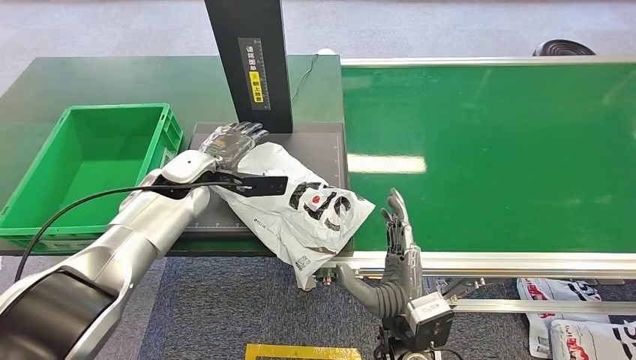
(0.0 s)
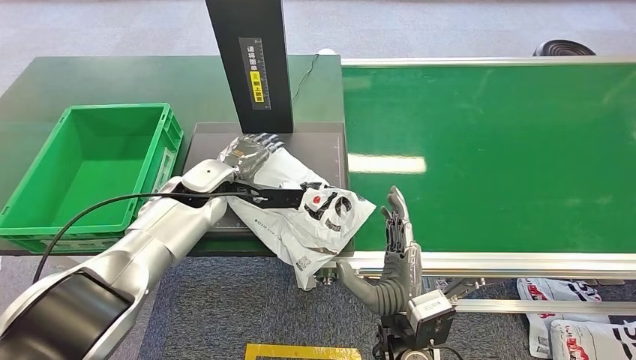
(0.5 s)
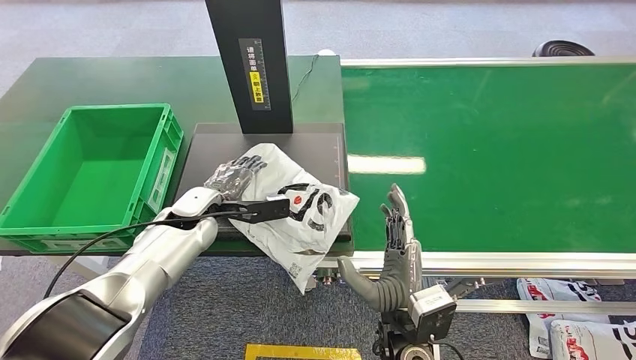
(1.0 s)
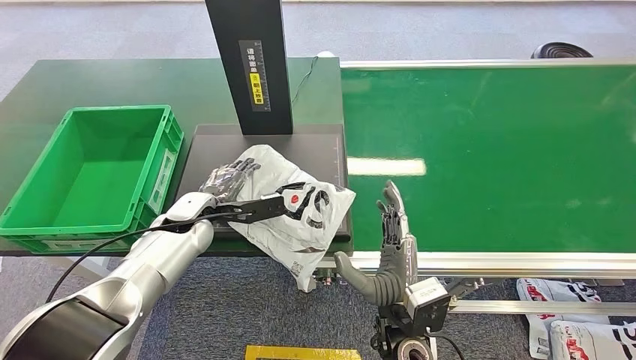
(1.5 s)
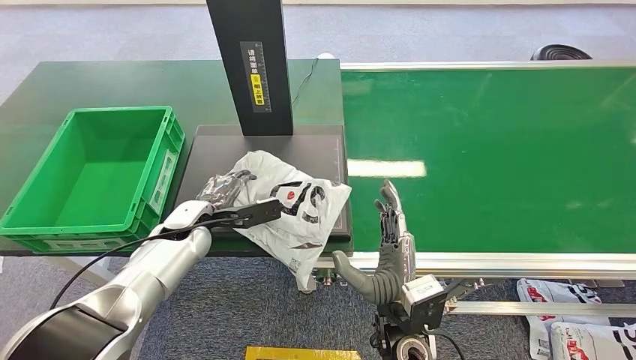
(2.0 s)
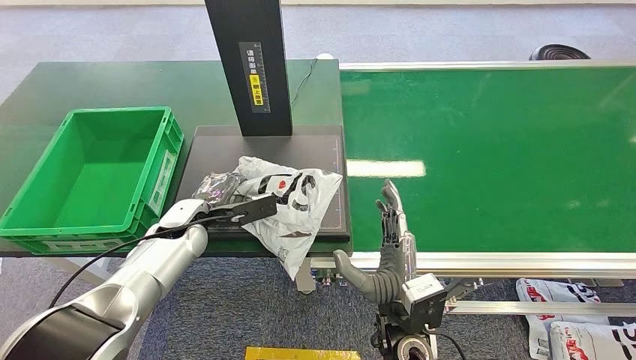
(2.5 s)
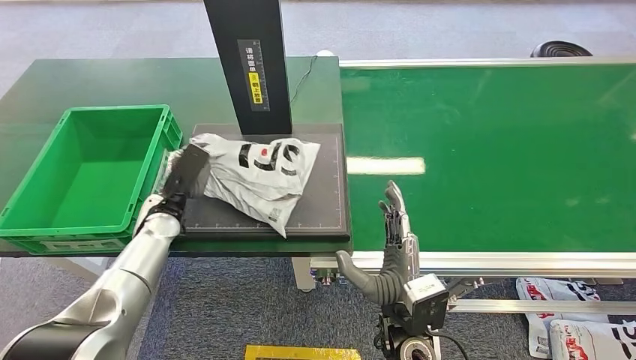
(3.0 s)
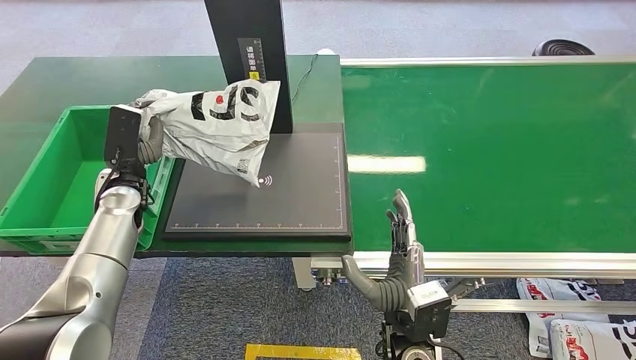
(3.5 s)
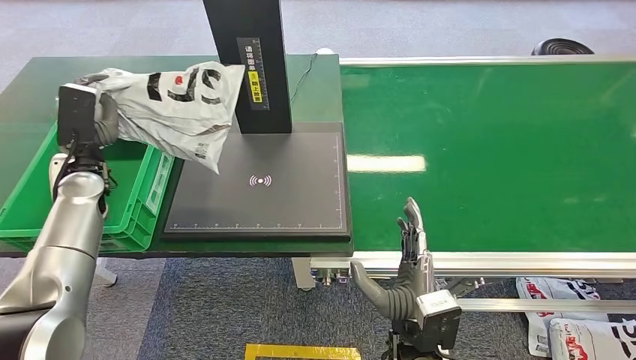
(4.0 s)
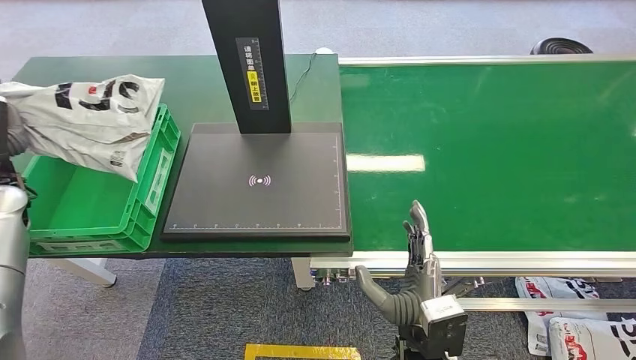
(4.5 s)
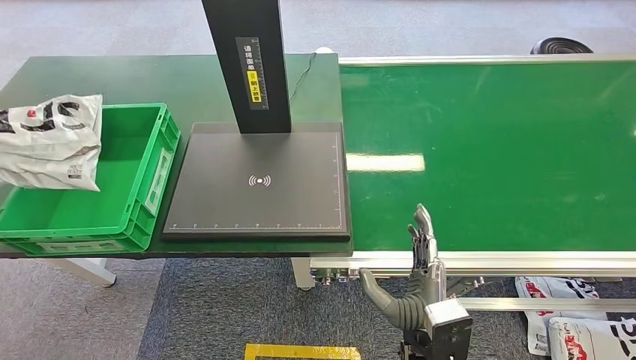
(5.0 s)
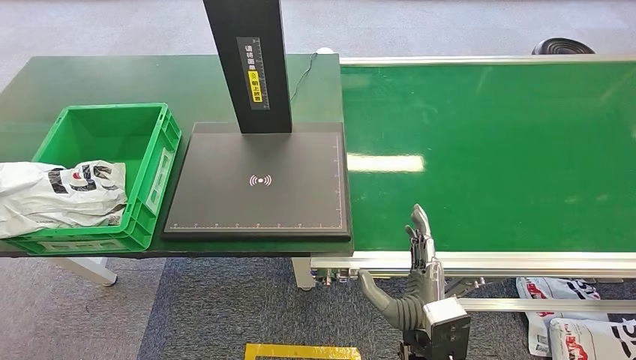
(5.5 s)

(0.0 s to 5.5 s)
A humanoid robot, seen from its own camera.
Step, 0.0 s - 3.0 s: Pick up the package from the inbound machine.
Step, 3.5 s - 5.5 s: Place the package into the parcel locker.
3.5 s - 5.5 s: The left hand heads to the left, covering roughly 25 cm.

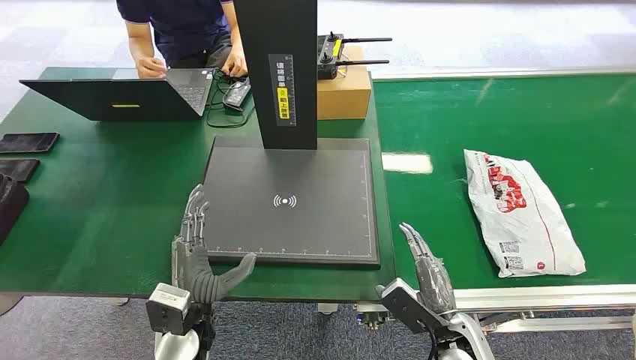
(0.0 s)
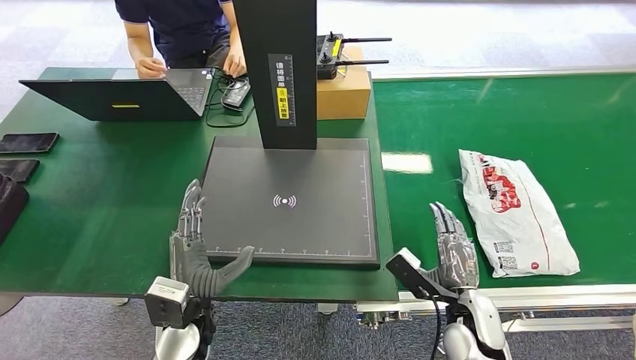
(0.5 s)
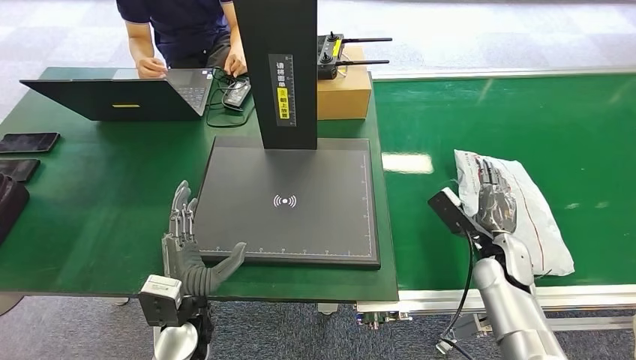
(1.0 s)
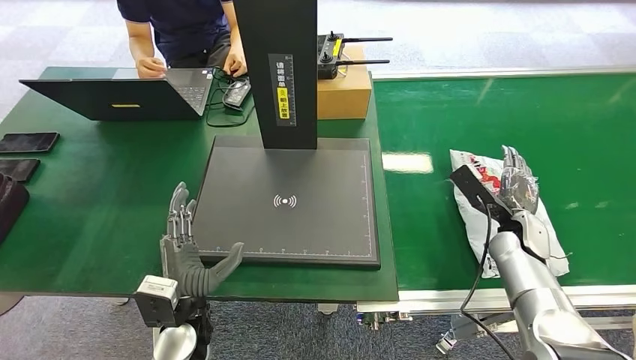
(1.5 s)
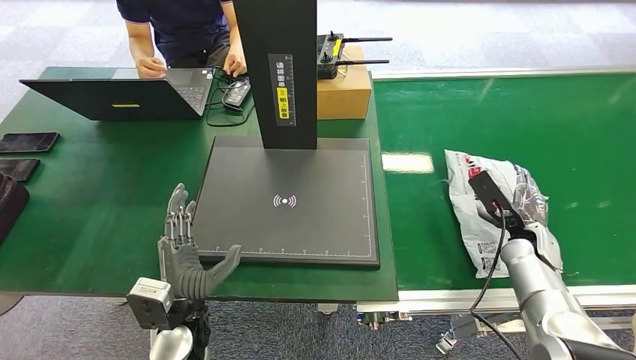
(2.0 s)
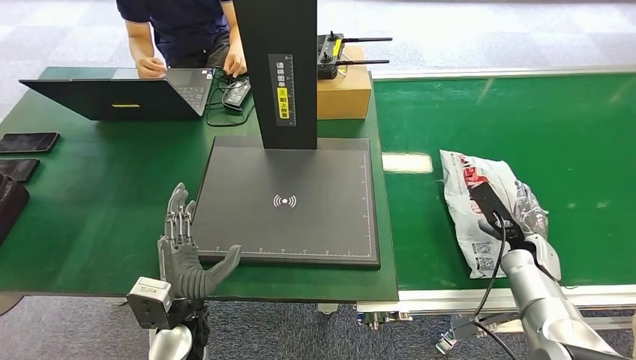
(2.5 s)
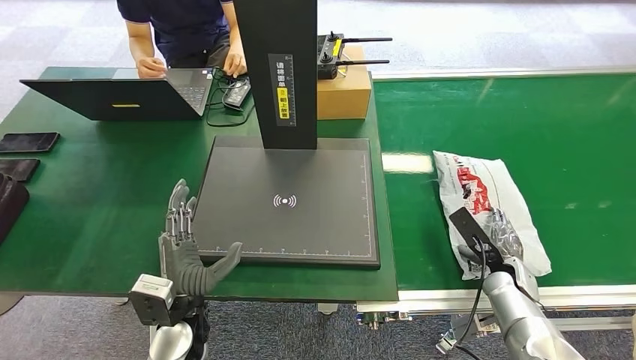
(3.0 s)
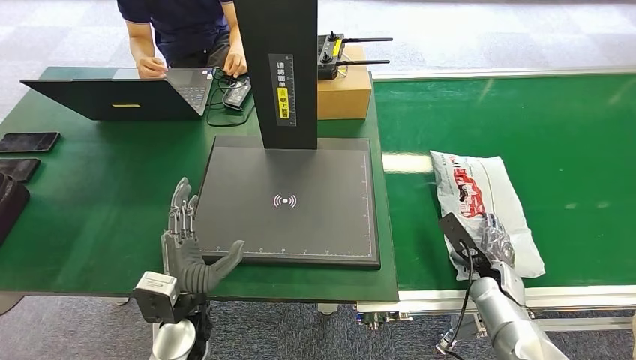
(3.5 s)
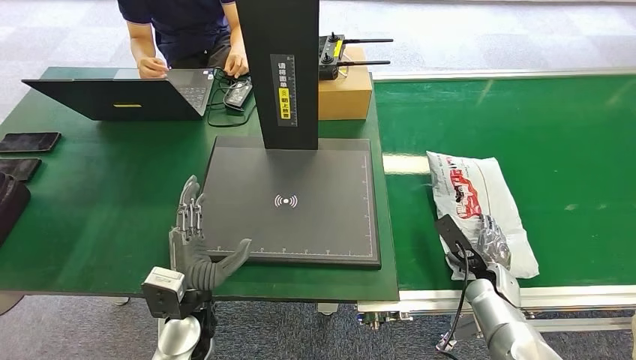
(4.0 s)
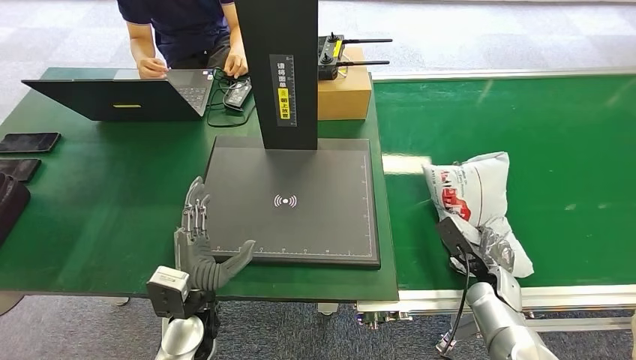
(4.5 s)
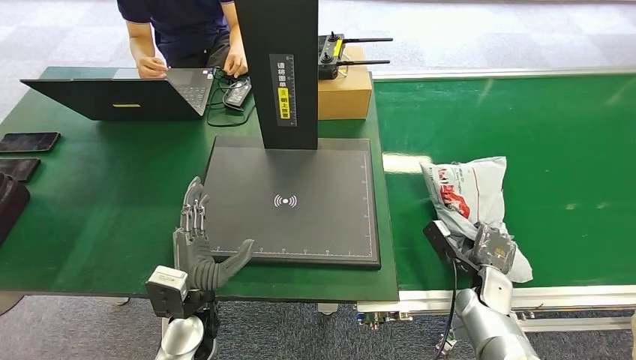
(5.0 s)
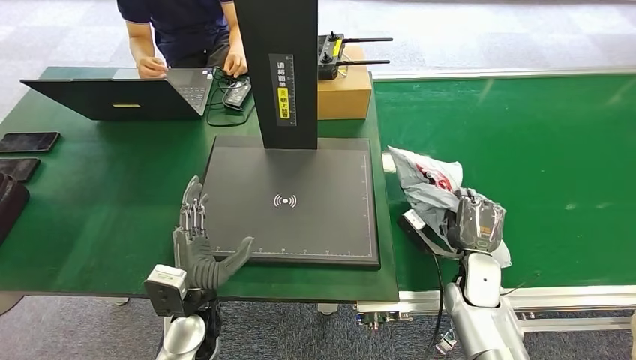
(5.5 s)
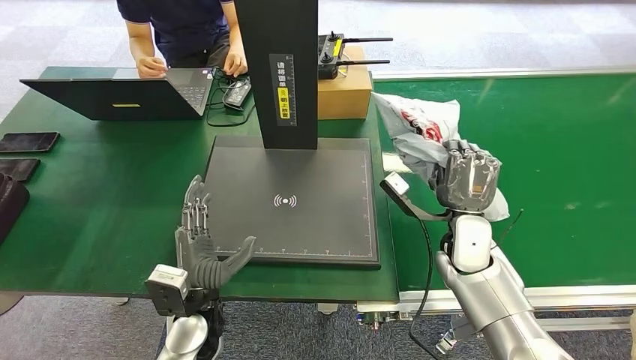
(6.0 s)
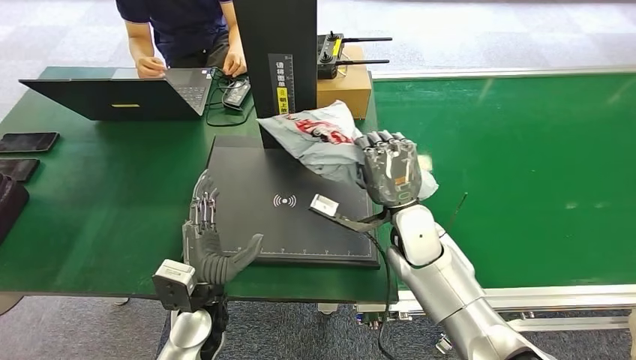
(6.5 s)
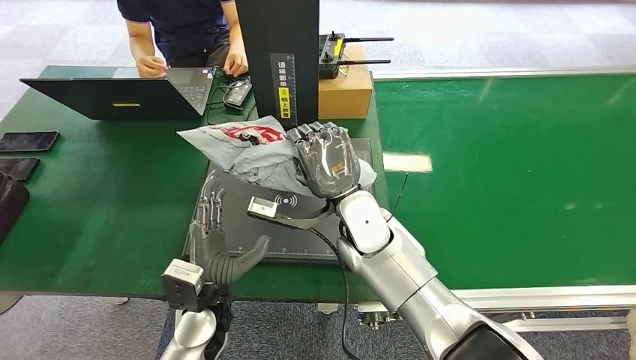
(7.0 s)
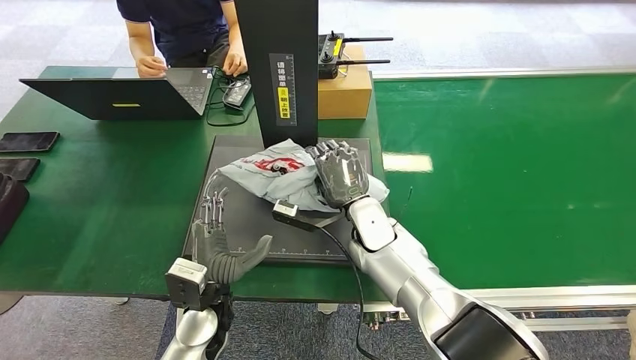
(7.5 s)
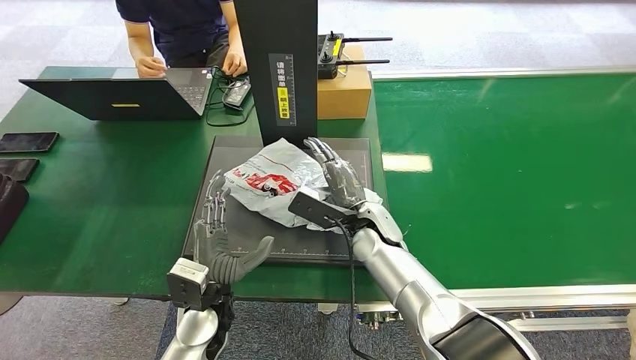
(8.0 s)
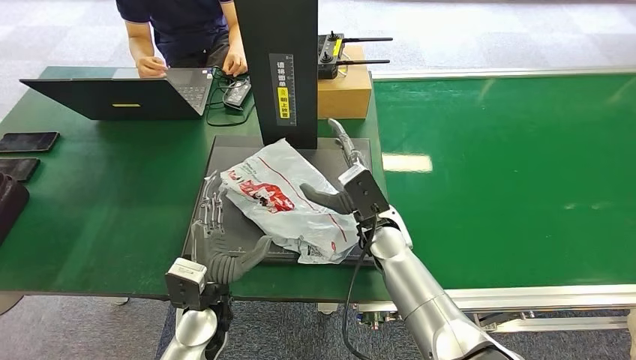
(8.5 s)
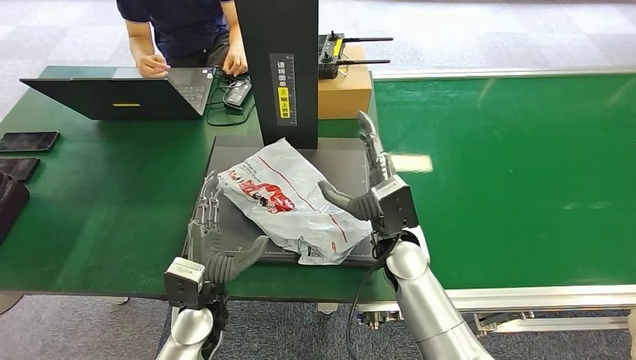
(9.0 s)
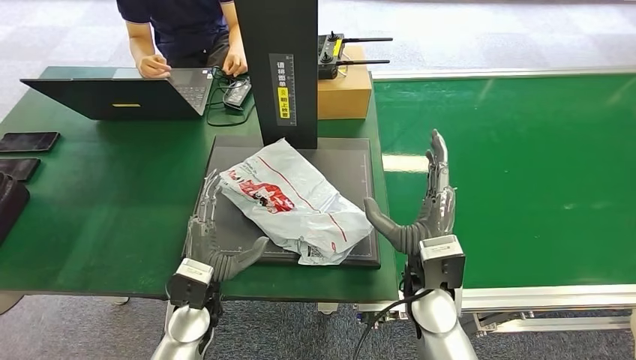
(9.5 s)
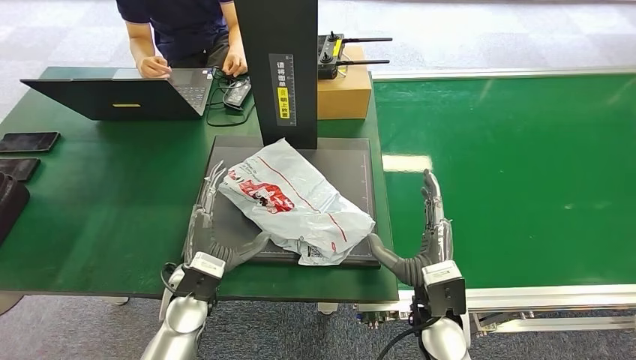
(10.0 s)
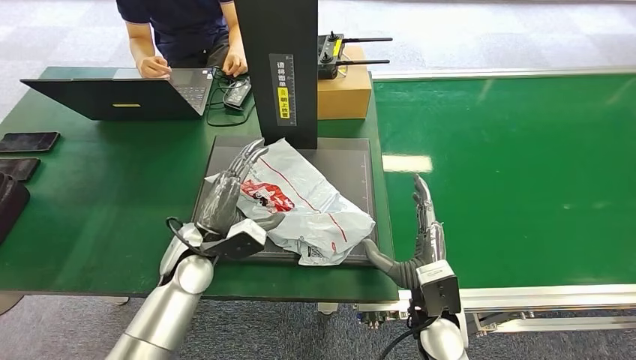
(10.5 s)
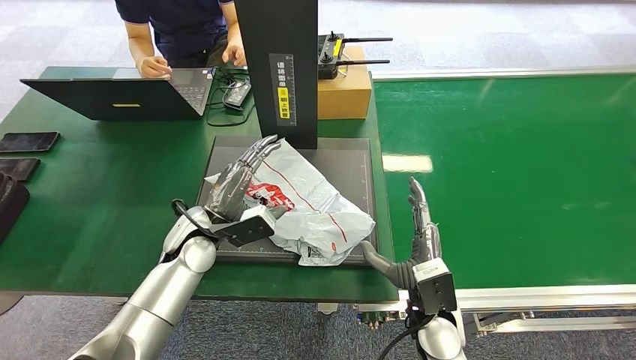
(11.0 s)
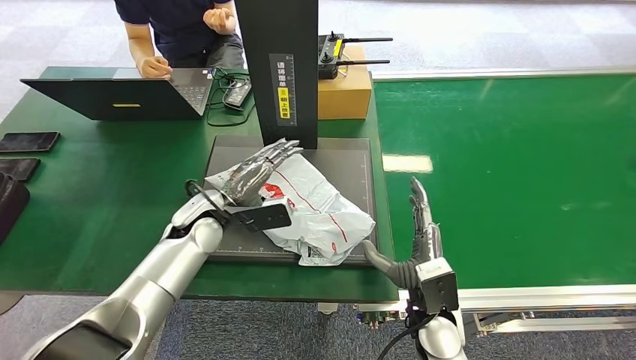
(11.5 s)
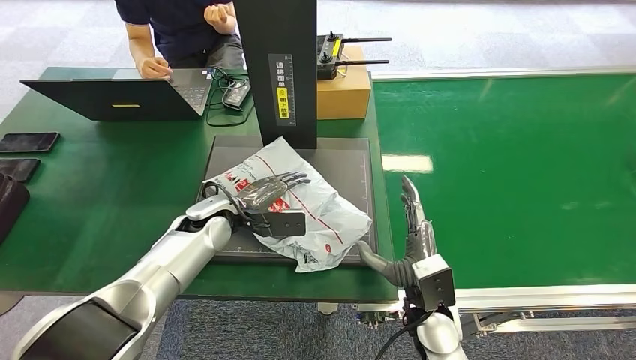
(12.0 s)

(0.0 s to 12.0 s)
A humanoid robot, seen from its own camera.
Step, 0.0 s - 5.5 s: Pick up the package from the conveyor belt.
Step, 6.0 s - 9.0 s: Place the package onto the inbound machine.
2.0 s - 4.0 s: The right hand shifts approximately 10 cm downward and to the left.
4.0 s - 6.0 s: The right hand moves upward and to the left, roughly 20 cm.
8.0 s - 10.0 s: The right hand travels backward and to the right by approximately 20 cm.
10.0 s - 12.0 s: The left hand heads forward, covering approximately 15 cm.

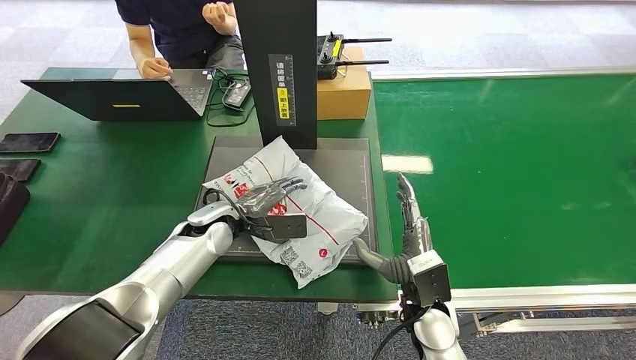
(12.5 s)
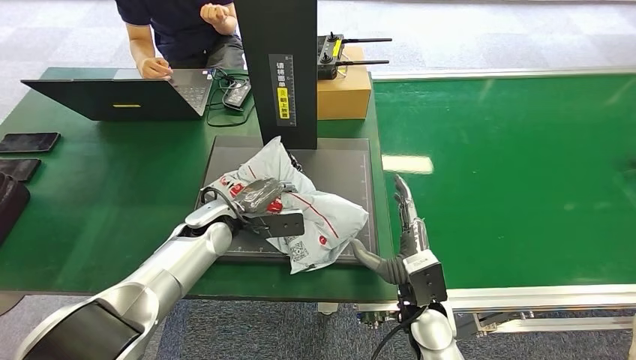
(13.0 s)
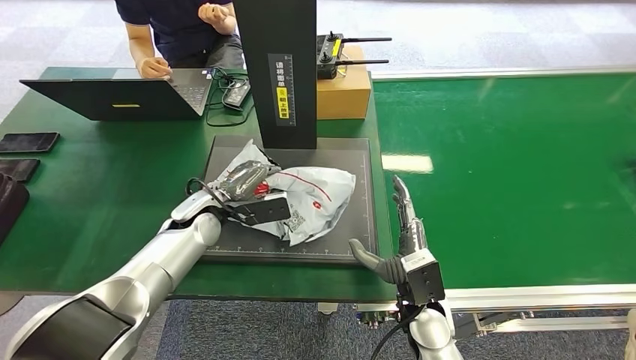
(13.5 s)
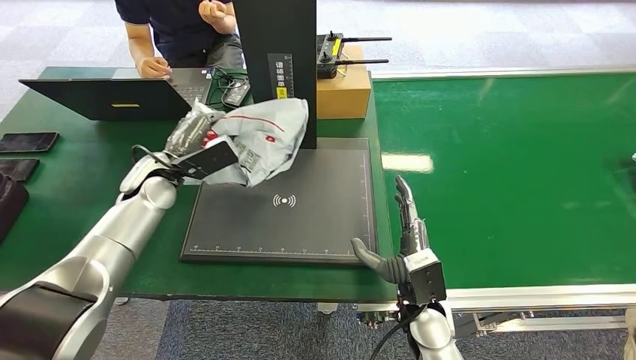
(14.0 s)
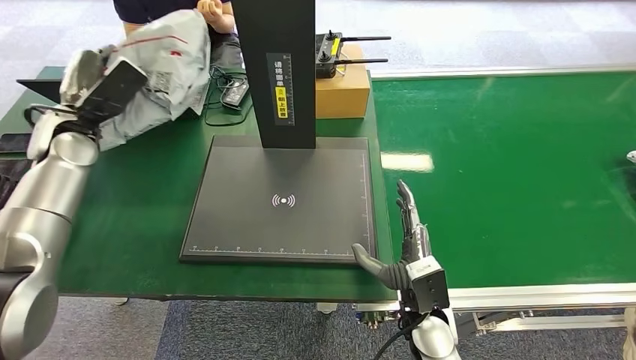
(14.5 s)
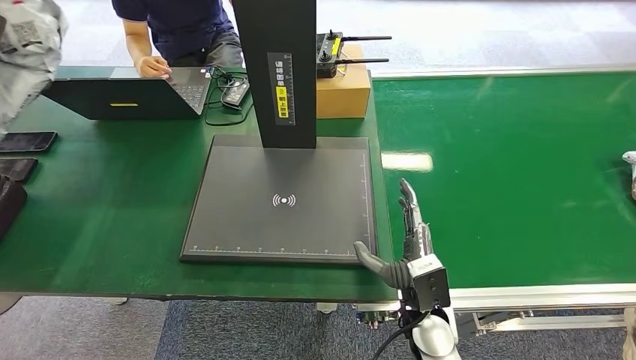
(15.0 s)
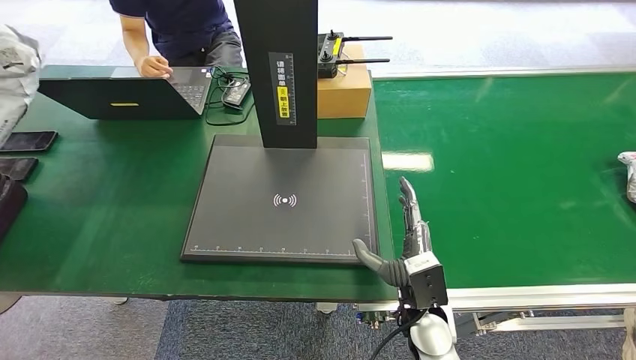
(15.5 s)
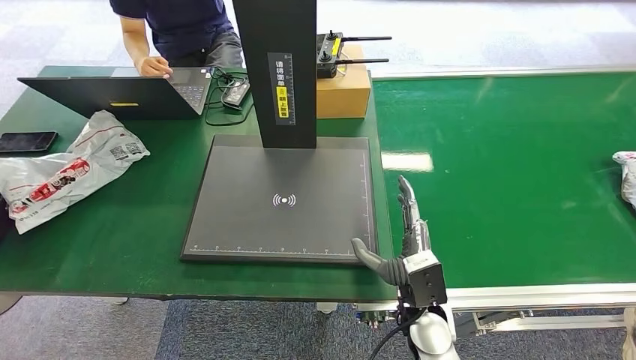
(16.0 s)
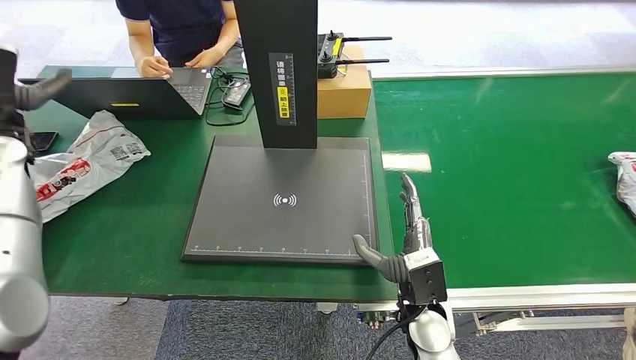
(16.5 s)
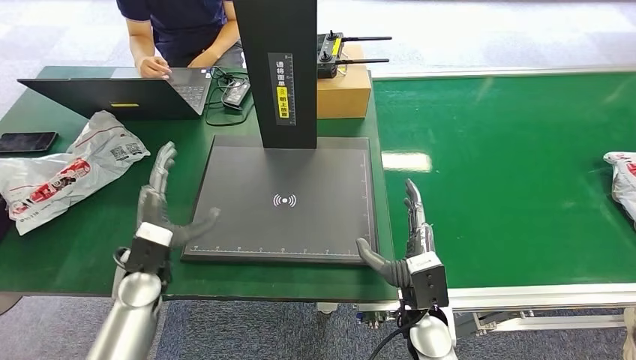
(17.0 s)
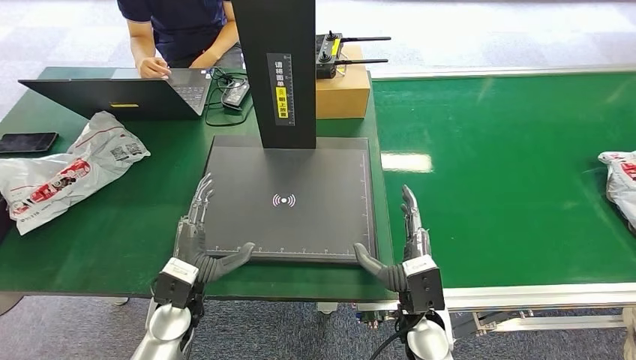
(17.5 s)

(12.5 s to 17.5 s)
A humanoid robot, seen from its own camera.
15.0 s - 17.5 s: The left hand travels to the right, downward and backward by about 40 cm.
